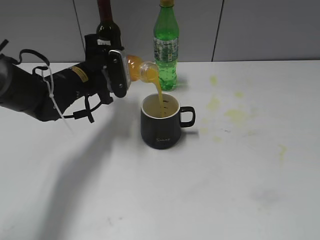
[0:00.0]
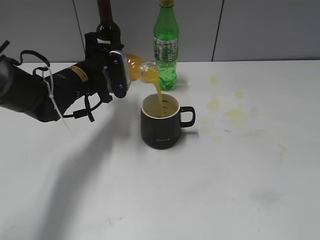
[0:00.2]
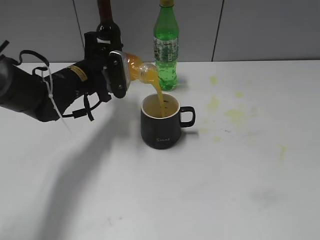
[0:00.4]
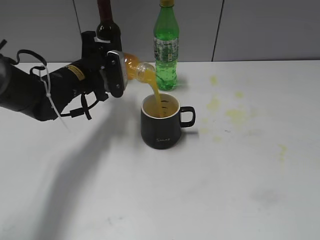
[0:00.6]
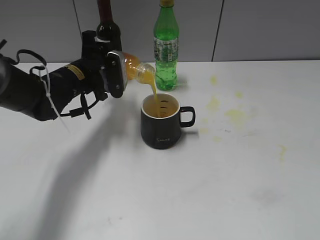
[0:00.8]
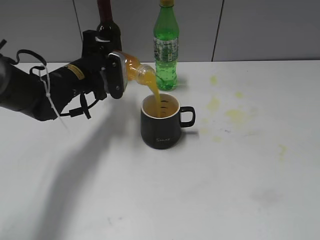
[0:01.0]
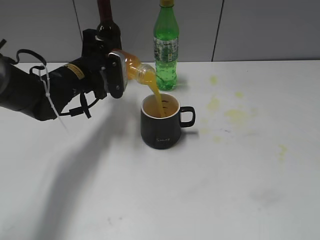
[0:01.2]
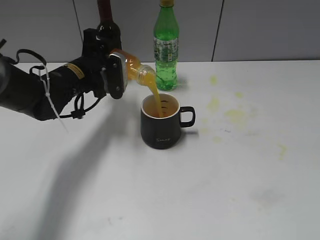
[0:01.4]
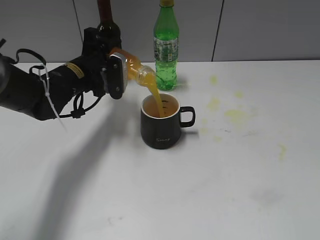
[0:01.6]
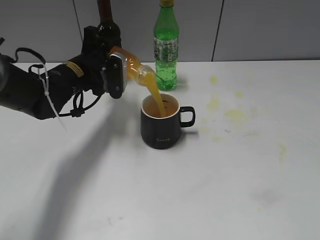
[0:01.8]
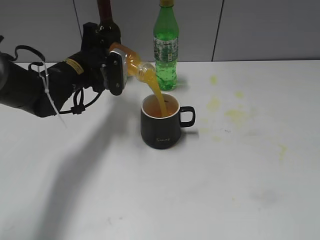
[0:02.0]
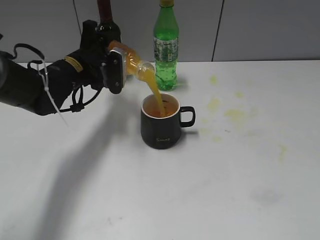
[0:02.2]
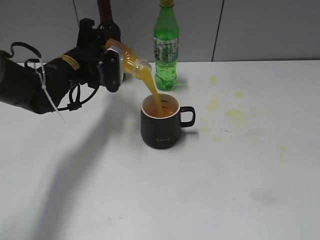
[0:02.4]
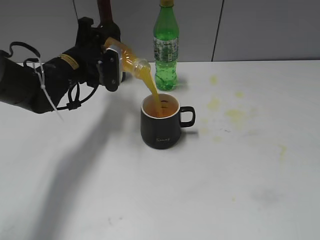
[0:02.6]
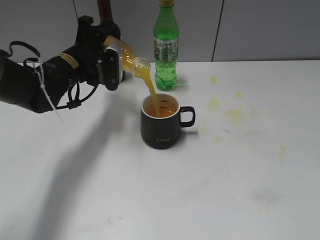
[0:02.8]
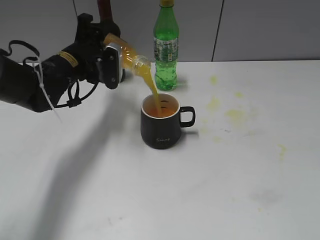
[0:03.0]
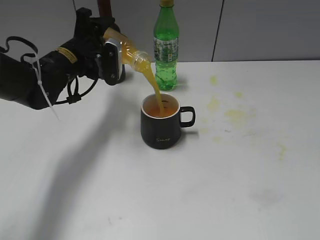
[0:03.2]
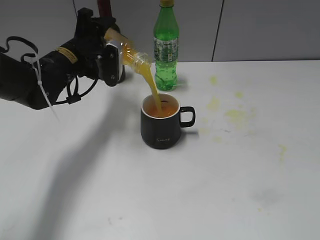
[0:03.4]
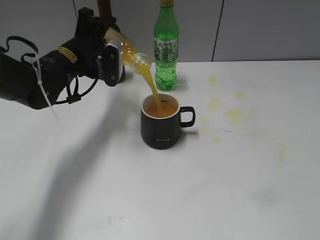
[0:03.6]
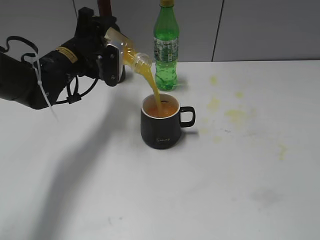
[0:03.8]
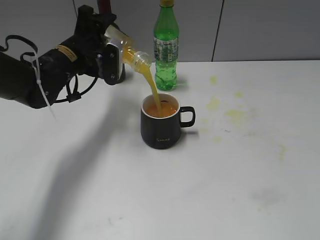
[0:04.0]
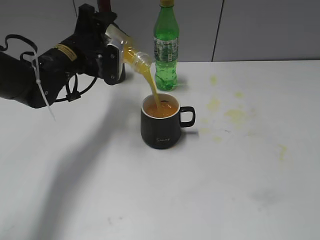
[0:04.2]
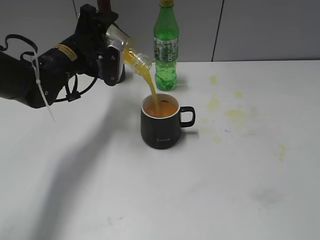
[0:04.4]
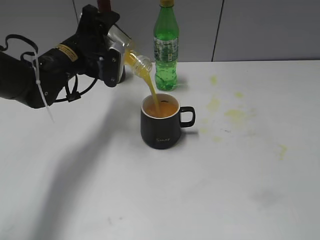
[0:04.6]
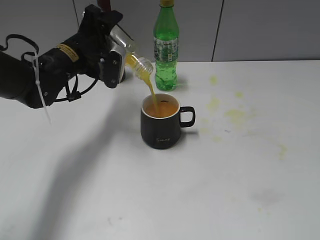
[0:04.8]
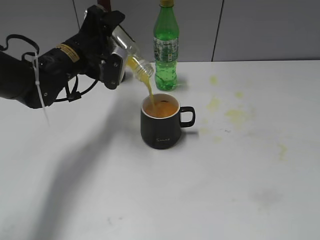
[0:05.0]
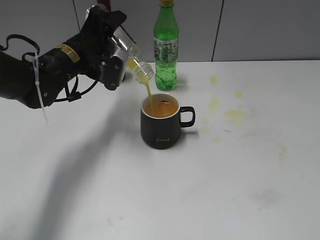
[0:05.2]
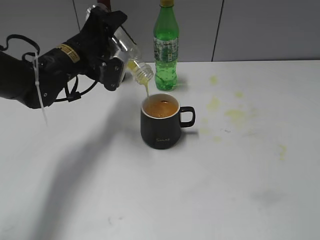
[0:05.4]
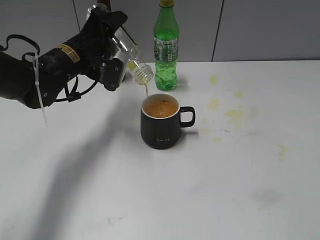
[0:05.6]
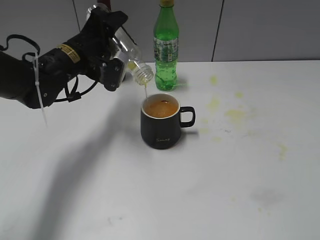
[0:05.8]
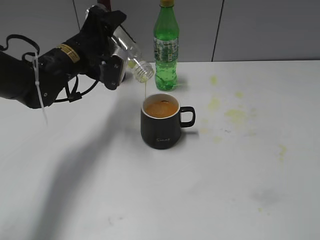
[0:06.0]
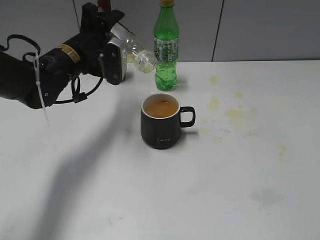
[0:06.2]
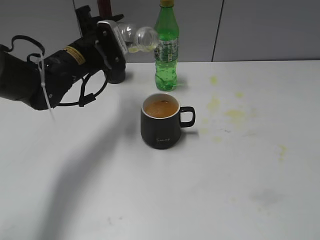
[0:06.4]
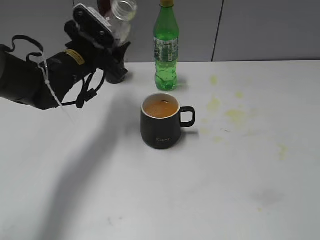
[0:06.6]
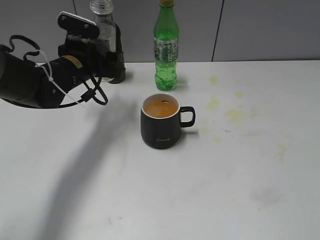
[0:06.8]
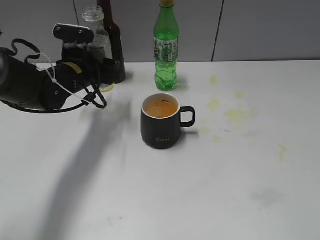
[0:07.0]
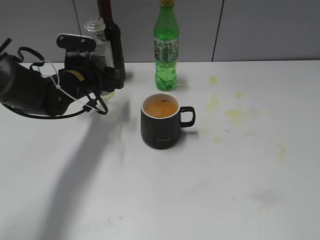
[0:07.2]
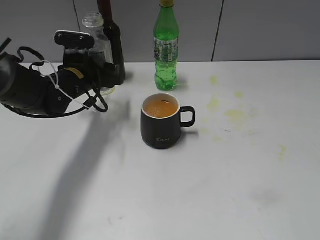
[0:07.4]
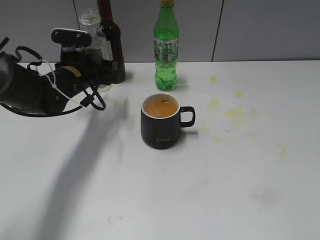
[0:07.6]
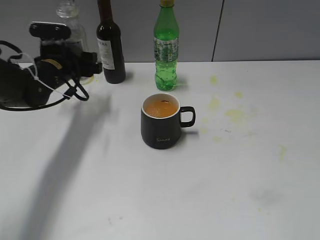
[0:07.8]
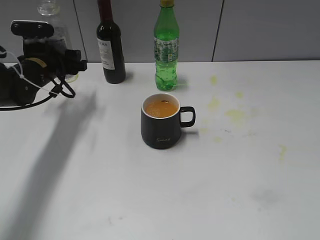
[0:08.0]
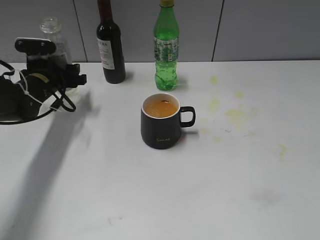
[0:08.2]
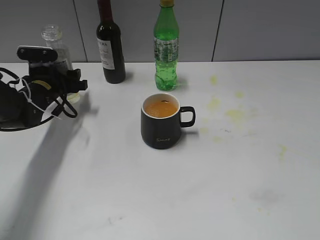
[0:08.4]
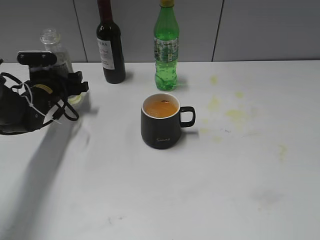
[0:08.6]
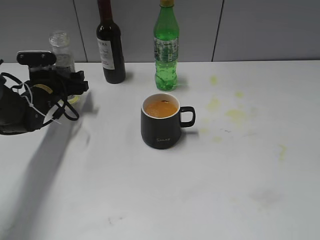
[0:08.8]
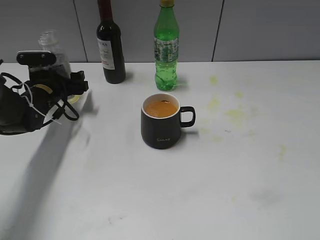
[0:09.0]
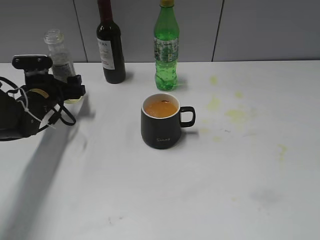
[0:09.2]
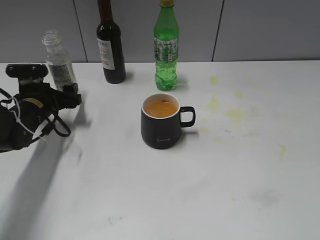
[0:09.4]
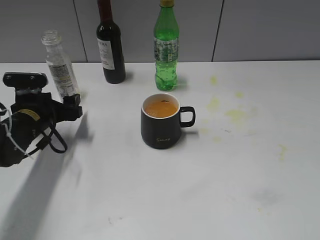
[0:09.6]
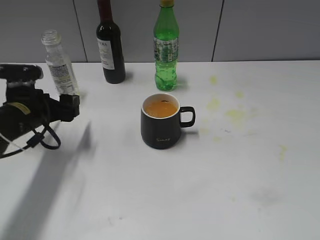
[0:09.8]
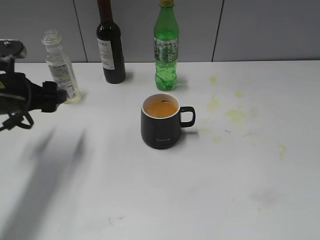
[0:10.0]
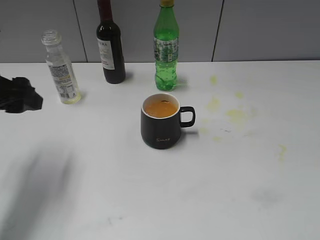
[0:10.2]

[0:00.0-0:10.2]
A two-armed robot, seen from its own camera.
Step, 0:00.0 to 0:06.2: Pour the orange juice from bottle to cup with left gripper.
Step, 0:06.4 to 0:09.0: Place the orange juice bottle on the table with left gripper.
0:00.0 to 0:01.4: The grippers move only a little.
0:01.4 to 0:04.4: There are only small adjustments of the grippers.
0:04.4 to 0:05.8: The grippers move only a little.
0:05.8 to 0:07.2: The left gripper moves downward, about 5 cm.
0:07.2 to 0:08.8: The left gripper goes roughly 10 cm to the left.
0:08.8 to 0:10.2: The left gripper moves backward and upward, some 20 cm.

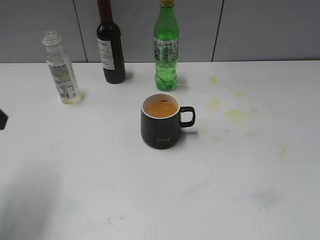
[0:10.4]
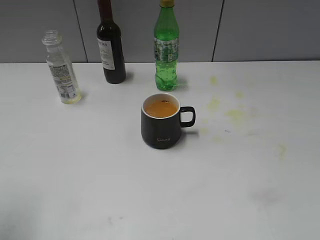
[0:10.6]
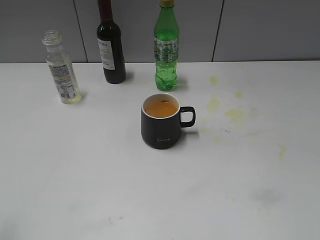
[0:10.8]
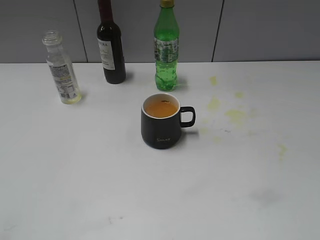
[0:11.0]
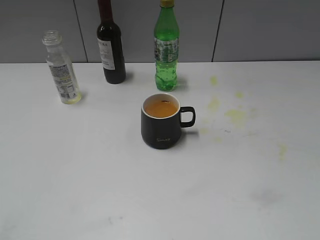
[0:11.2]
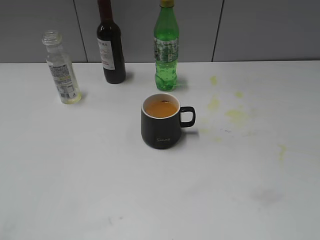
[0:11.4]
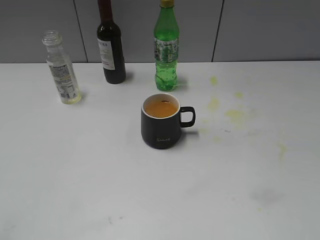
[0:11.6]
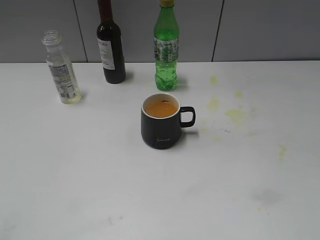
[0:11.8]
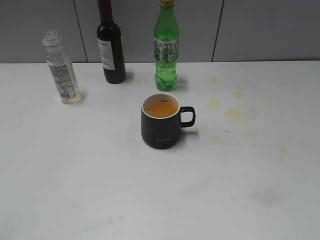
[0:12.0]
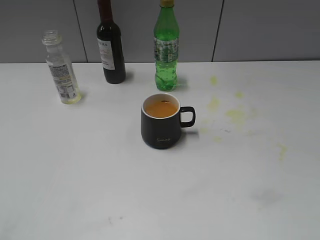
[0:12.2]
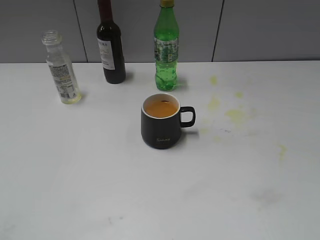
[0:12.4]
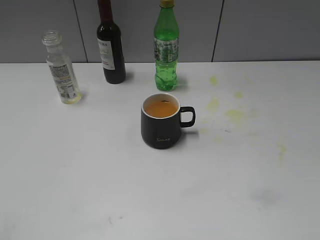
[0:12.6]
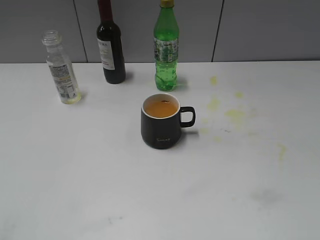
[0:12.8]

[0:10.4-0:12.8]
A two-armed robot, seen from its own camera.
0:10.4 to 0:11.6: The left gripper shifts about 20 cm backward.

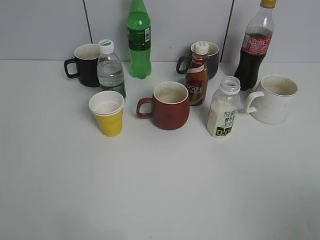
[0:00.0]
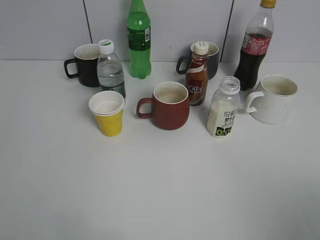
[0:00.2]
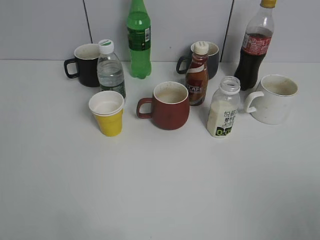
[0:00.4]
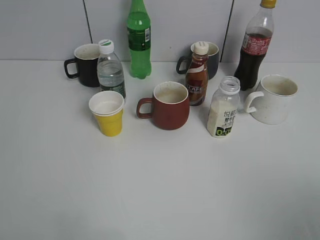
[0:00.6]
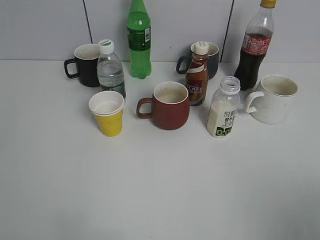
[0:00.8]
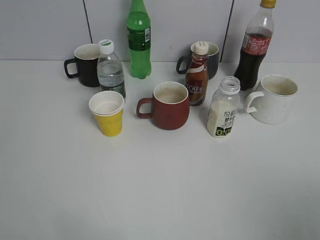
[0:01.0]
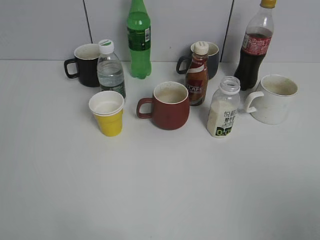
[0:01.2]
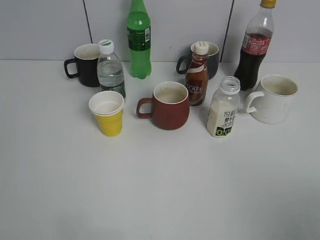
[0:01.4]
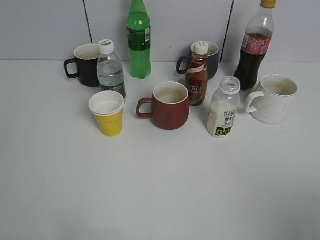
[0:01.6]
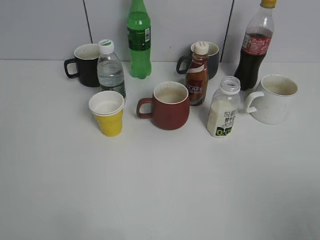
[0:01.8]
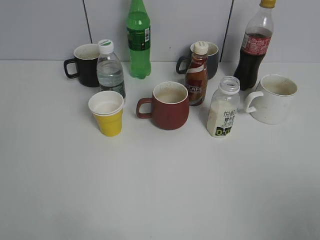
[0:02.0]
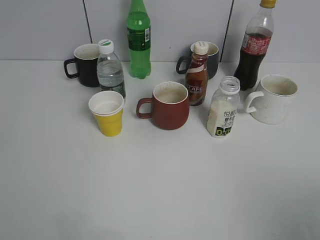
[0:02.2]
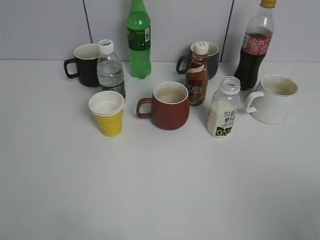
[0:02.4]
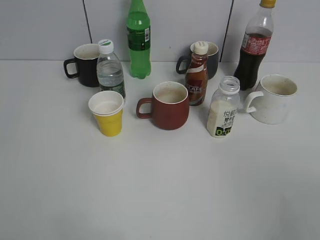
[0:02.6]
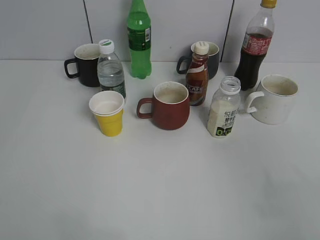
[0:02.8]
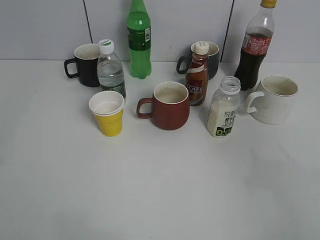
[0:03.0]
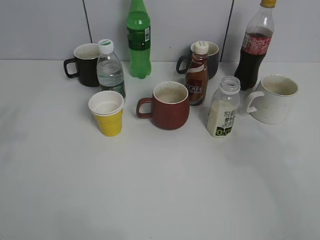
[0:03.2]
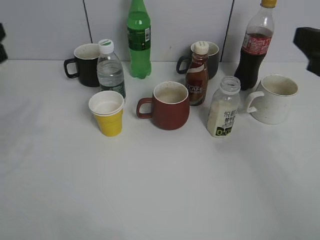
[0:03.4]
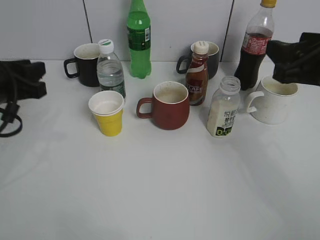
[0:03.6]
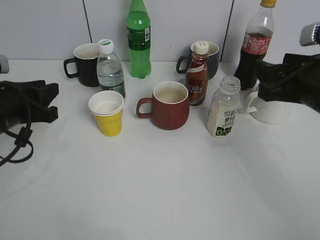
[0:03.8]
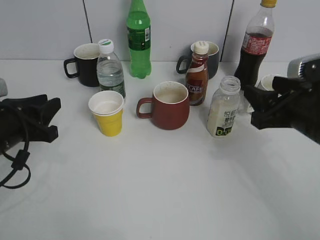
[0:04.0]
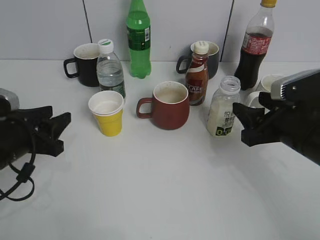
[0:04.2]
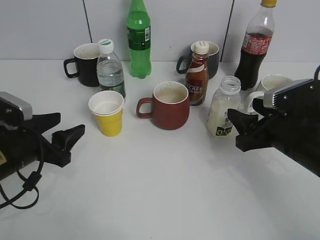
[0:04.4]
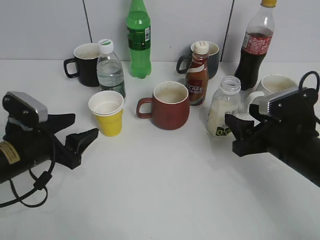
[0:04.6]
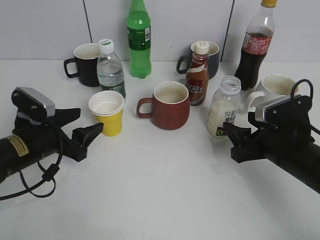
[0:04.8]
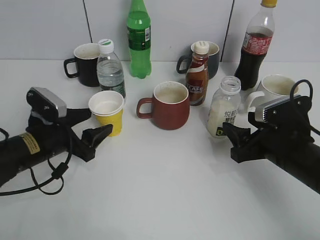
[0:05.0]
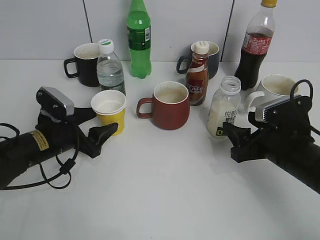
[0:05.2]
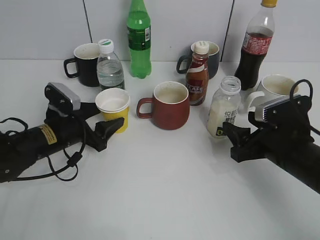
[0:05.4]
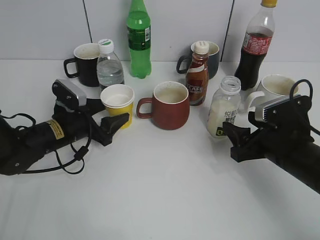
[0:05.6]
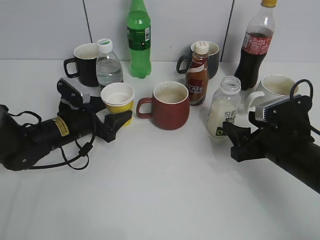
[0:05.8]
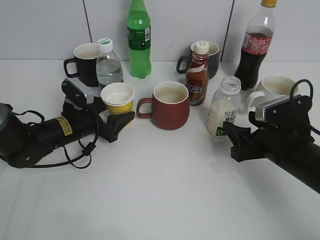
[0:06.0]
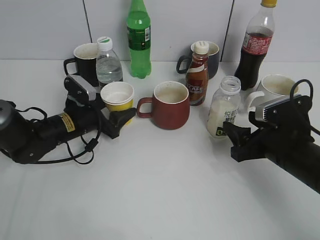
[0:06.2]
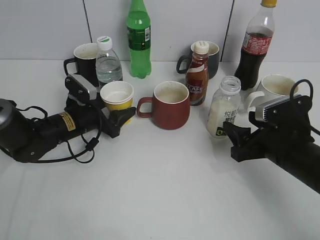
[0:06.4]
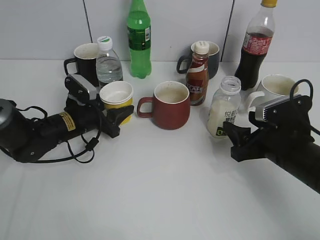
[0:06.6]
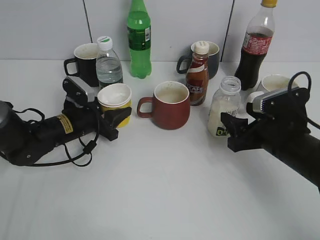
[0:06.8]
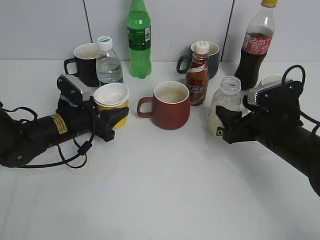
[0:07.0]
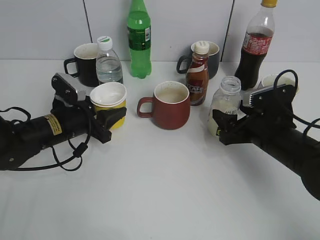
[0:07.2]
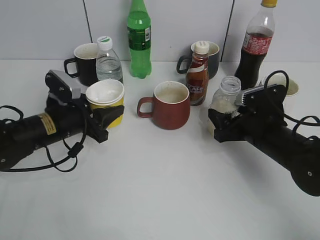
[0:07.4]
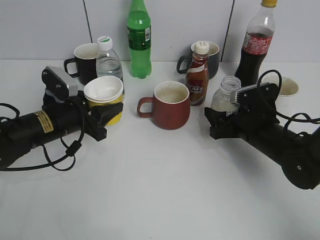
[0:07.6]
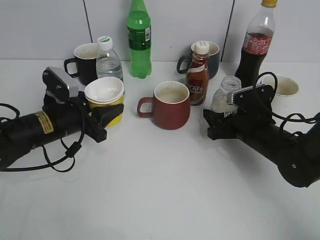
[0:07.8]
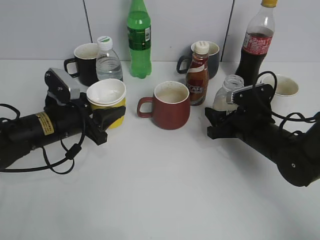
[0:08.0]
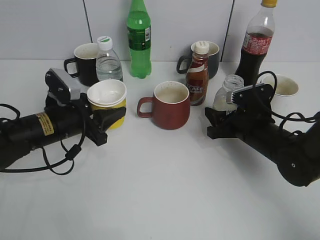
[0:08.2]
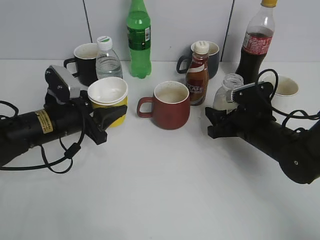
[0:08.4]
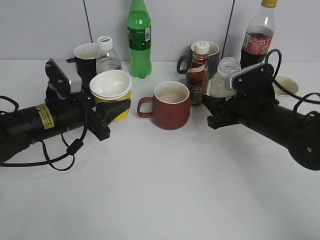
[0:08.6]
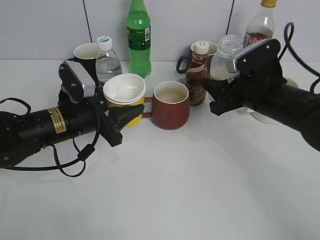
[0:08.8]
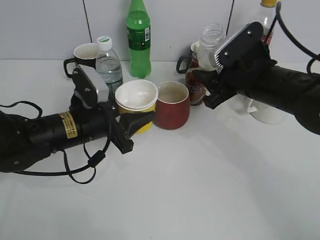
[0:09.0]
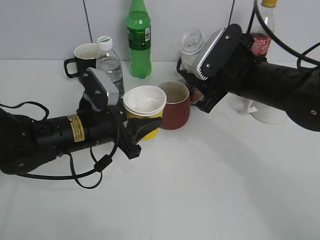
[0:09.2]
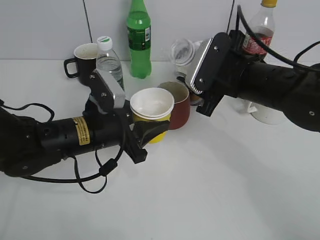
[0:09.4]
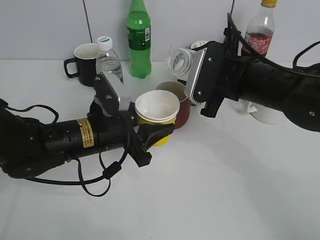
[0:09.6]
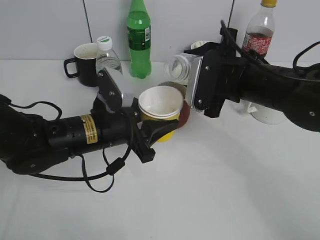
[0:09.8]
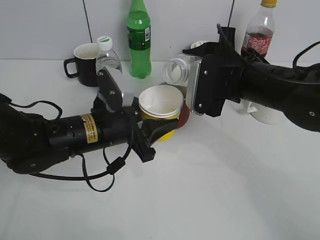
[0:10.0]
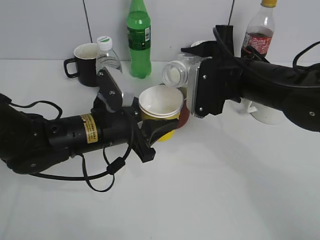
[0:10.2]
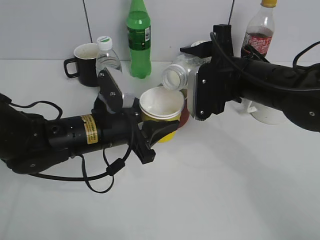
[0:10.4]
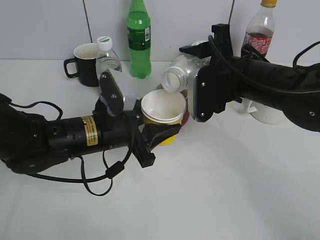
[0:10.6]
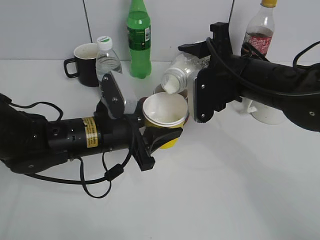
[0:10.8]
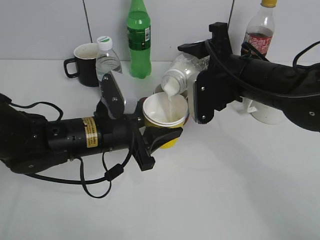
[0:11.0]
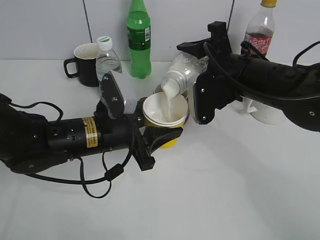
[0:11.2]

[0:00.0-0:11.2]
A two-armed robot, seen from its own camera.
Step, 0:03.4 to 0:06.0: Grasp the yellow paper cup with left gripper.
Step, 0:06.4 to 0:07.0: Lift the yellow paper cup with left gripper.
Step, 0:07.2 to 0:08.4: Grasp the bottle with yuexian Milk with right gripper.
0:01.6 to 0:03.2: The right gripper travels forward by approximately 15 cm.
0:03.2 to 0:04.8: The right gripper is displaced downward and forward by approximately 25 cm. Meanwhile the left gripper shifts some 20 cm downward and to the right, and opens up.
0:04.8 to 0:06.4: The left gripper heads forward, covering about 10 cm.
0:06.4 to 0:08.0: The left gripper shifts about 5 cm backward, and closes its fingers; the right gripper is displaced forward by roughly 5 cm, and closes.
0:08.0 to 0:09.6: The right gripper moves upward and to the left, roughly 15 cm, while the left gripper moves to the right, some 10 cm.
